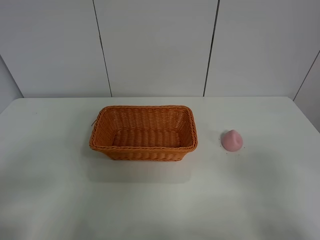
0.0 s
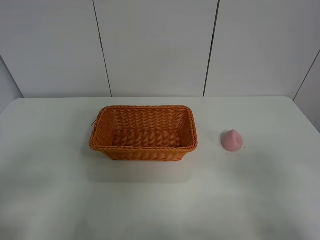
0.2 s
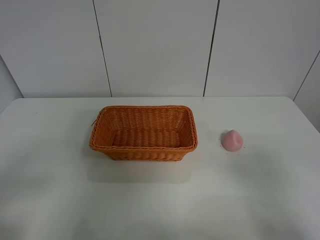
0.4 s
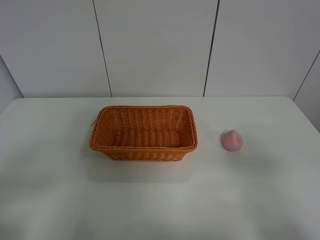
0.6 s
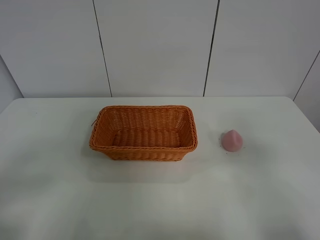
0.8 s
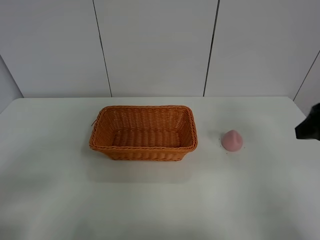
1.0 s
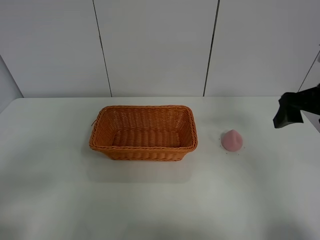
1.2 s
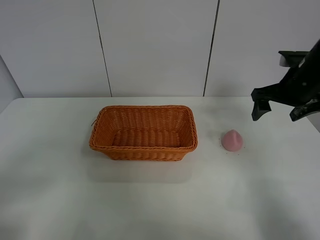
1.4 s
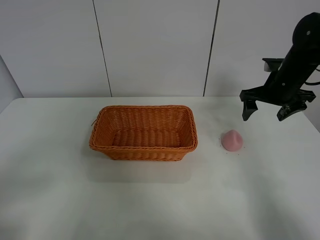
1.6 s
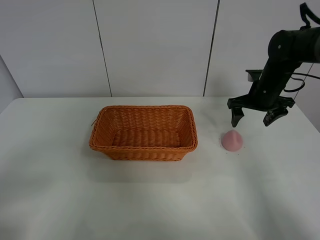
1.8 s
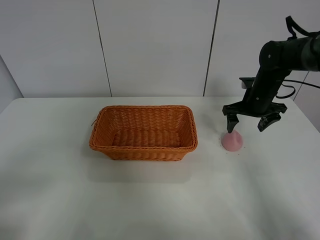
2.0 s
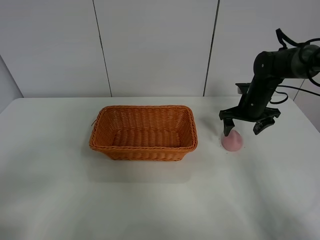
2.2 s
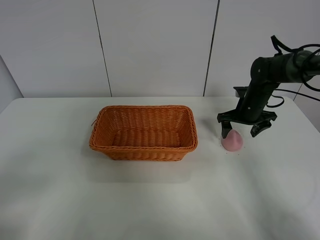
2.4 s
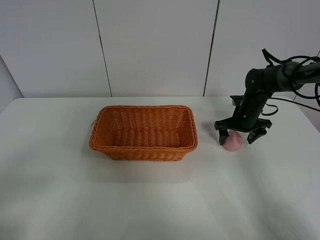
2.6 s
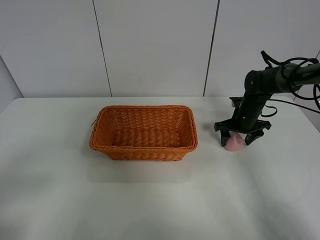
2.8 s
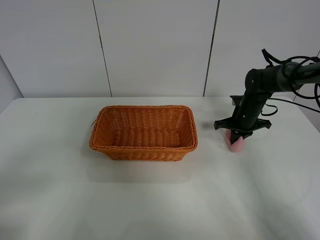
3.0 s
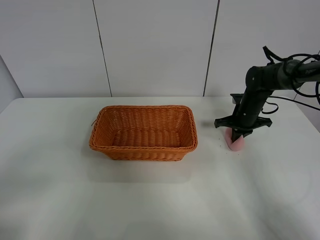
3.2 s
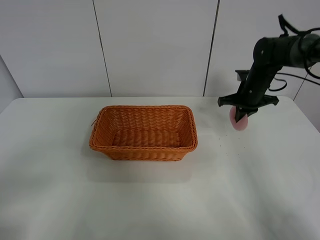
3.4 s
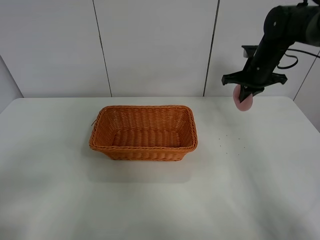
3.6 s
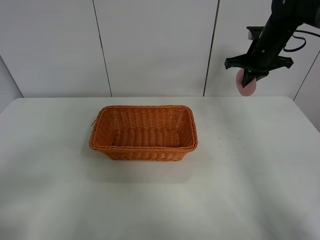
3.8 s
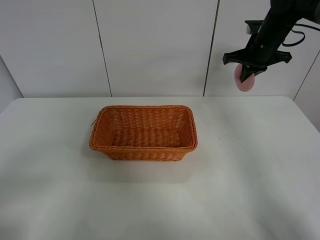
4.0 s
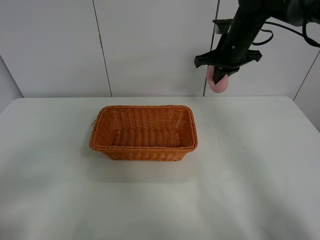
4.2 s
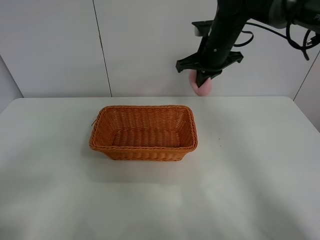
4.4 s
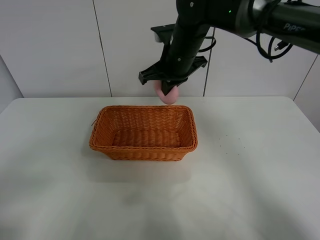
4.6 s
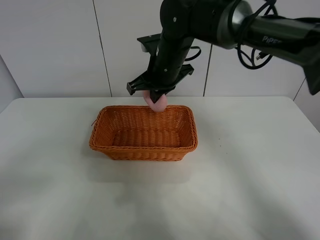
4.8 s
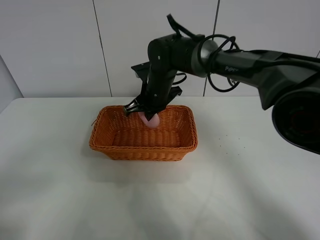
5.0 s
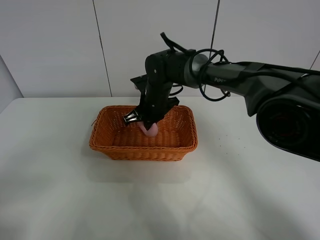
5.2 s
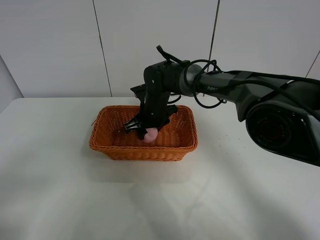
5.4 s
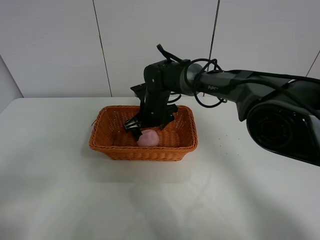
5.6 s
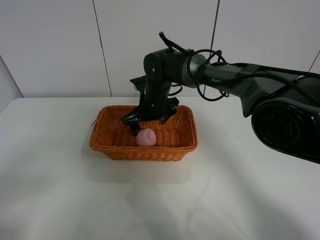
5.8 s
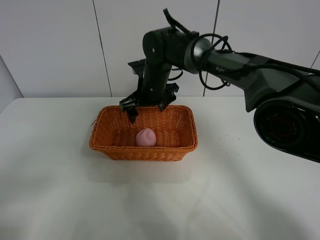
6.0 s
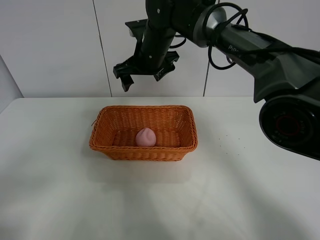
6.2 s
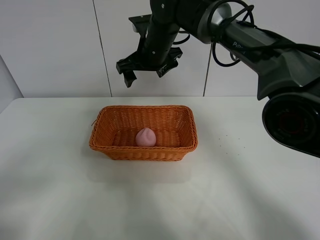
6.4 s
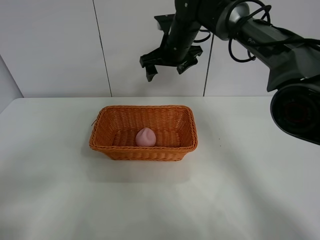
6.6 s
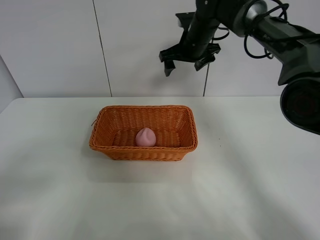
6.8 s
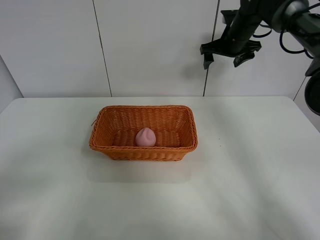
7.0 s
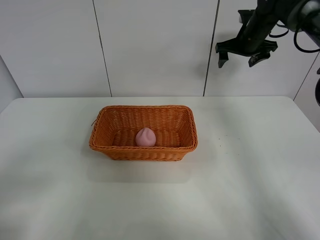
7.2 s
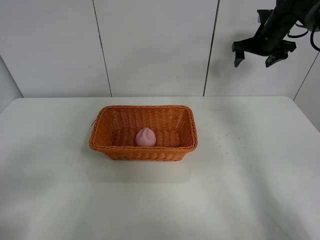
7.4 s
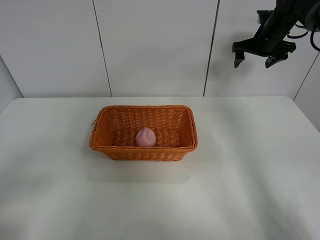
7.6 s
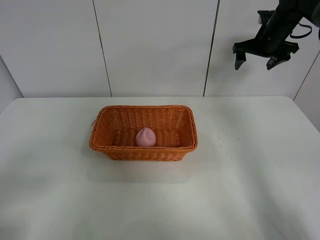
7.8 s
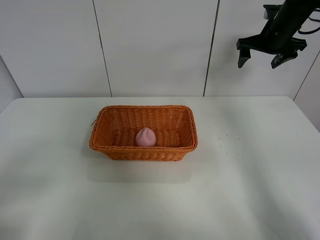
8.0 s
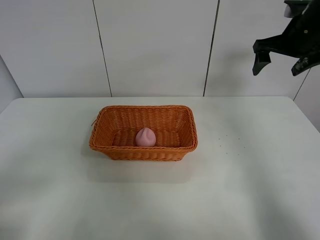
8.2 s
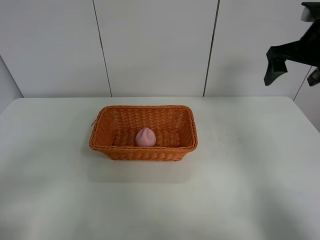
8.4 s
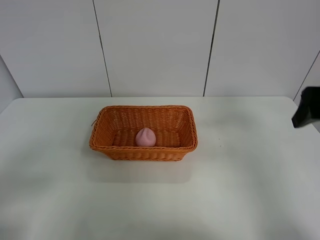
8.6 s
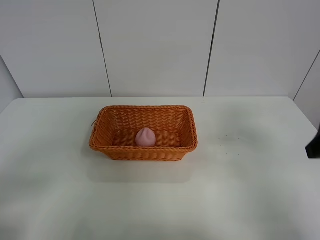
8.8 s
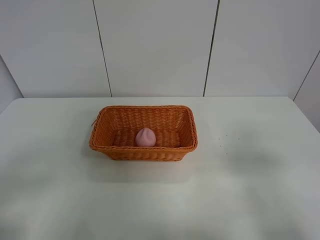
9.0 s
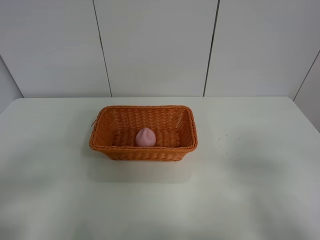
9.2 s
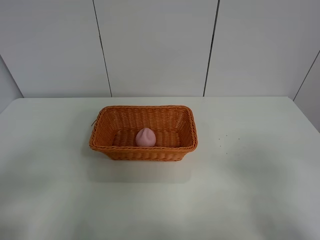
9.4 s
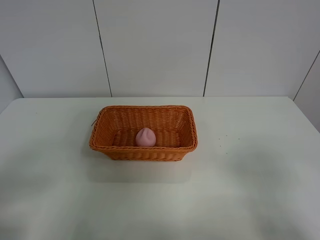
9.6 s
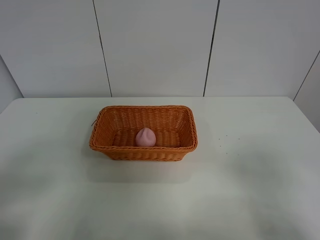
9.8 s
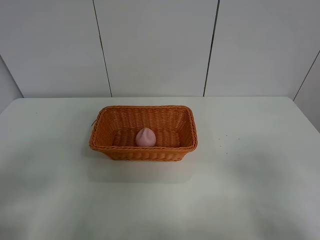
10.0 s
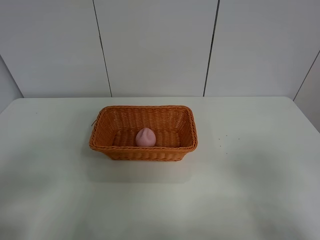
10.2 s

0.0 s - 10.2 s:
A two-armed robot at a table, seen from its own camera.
Step, 0.0 s - 2.8 s: Grasp the peach with right gripper.
Step, 3.0 s - 6.0 s: Place the peach in the basket with right gripper.
0.0 s - 1.4 s: The right gripper heads forward, covering some 30 cm.
1.4 s - 3.0 s: The right gripper goes approximately 20 cm downward and forward, and closes its fingers.
3.0 s - 4.4 s: The right gripper heads upward and to the left, covering some 25 cm.
4.4 s - 5.8 s: The right gripper moves downward and to the left, roughly 20 cm, and opens.
5.8 s - 7.2 s: The right gripper moves to the right, upward and forward, roughly 30 cm.
7.2 s - 8.8 s: The right gripper moves backward, approximately 35 cm.
8.8 s - 10.2 s: The right gripper moves backward, approximately 15 cm.

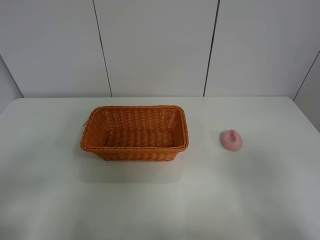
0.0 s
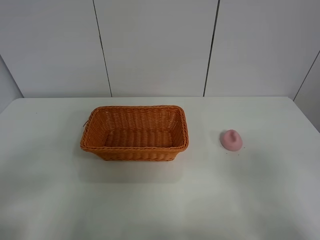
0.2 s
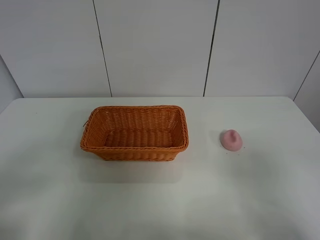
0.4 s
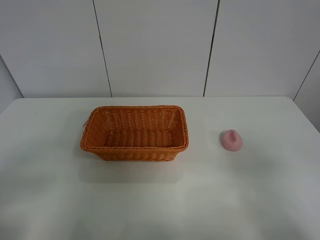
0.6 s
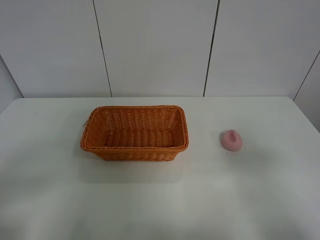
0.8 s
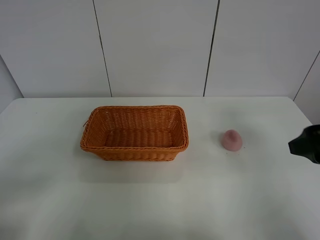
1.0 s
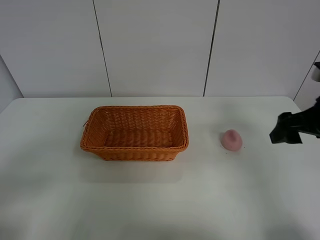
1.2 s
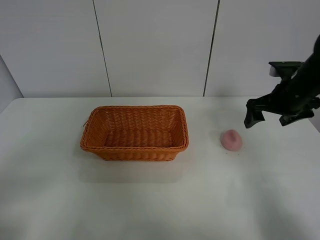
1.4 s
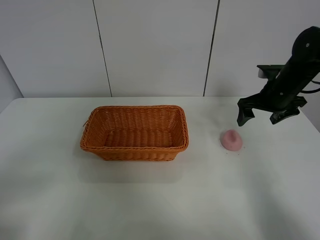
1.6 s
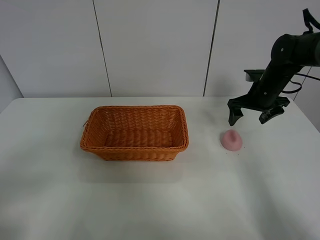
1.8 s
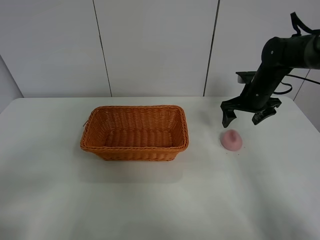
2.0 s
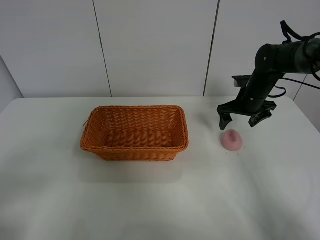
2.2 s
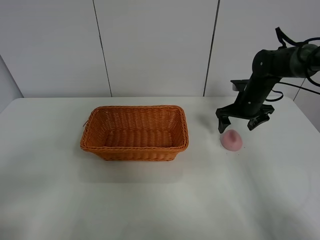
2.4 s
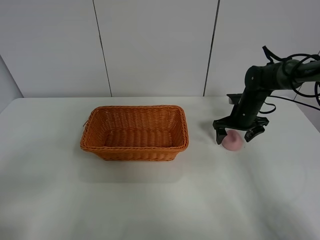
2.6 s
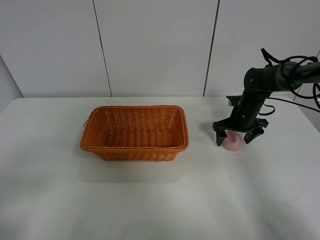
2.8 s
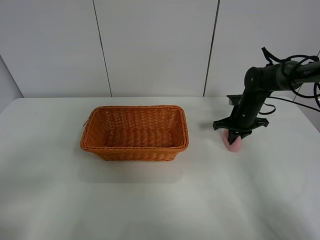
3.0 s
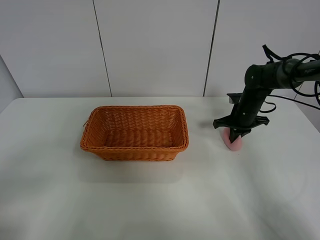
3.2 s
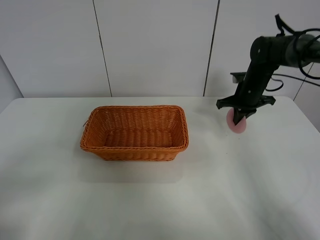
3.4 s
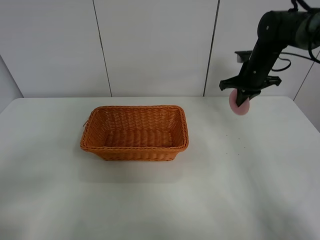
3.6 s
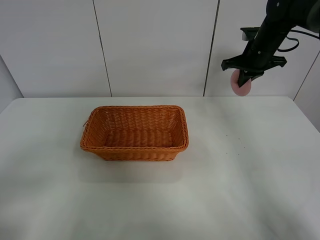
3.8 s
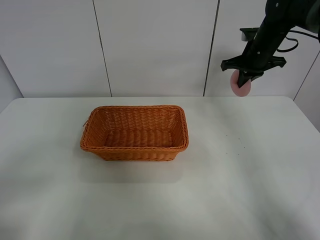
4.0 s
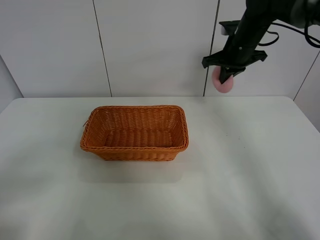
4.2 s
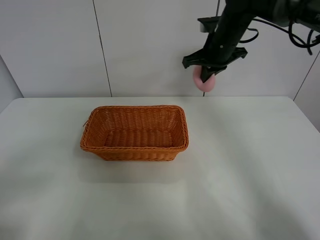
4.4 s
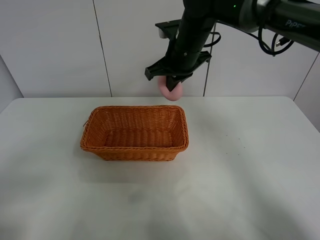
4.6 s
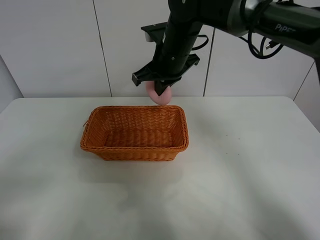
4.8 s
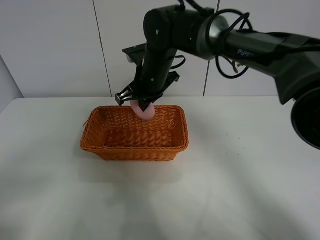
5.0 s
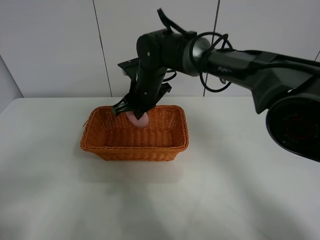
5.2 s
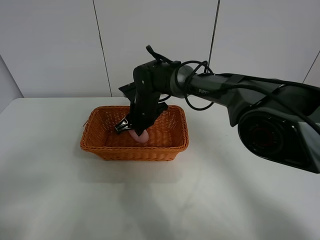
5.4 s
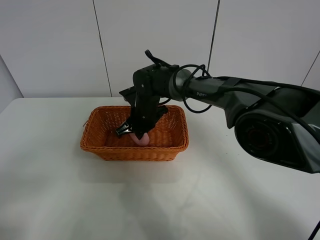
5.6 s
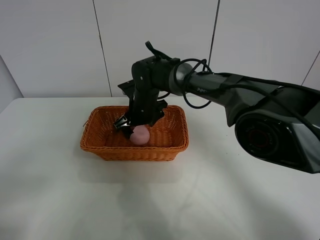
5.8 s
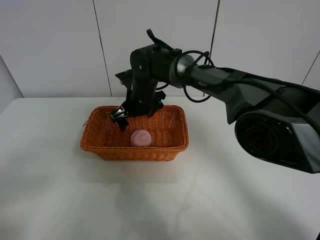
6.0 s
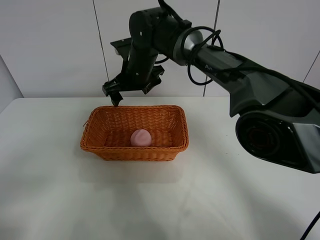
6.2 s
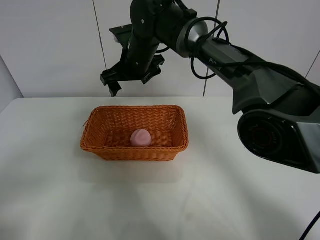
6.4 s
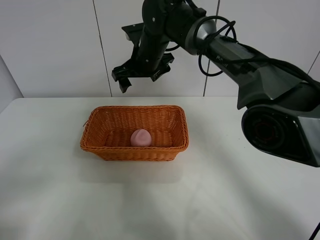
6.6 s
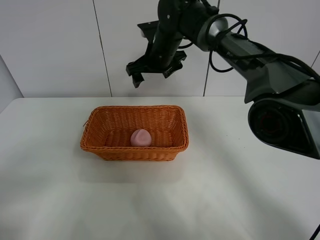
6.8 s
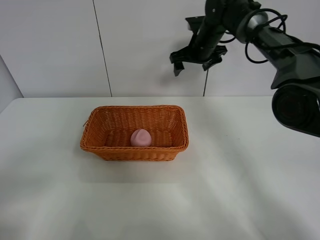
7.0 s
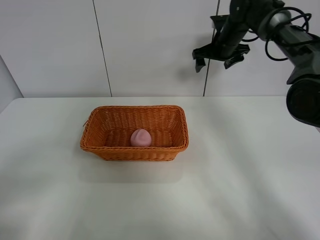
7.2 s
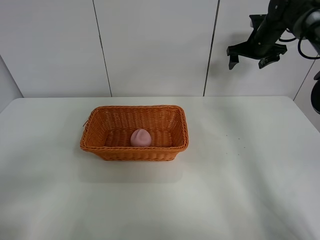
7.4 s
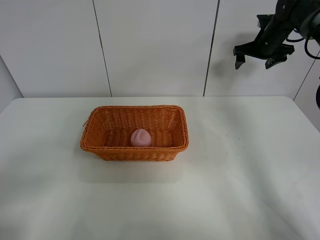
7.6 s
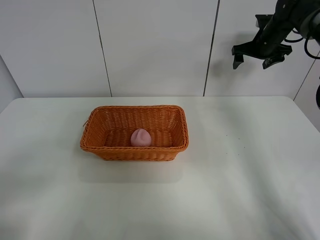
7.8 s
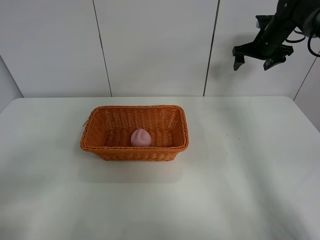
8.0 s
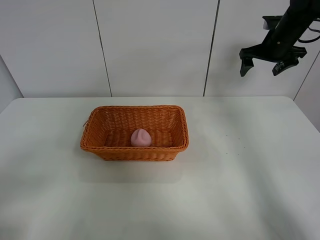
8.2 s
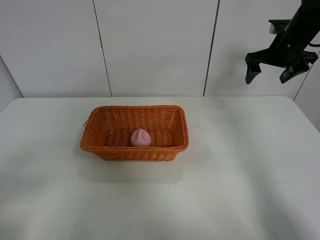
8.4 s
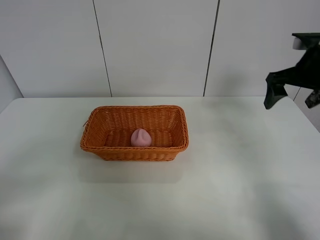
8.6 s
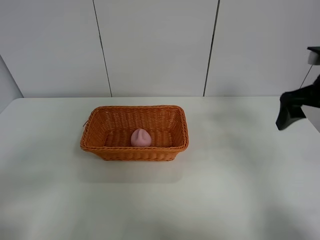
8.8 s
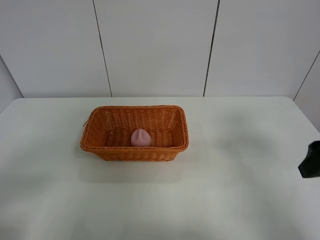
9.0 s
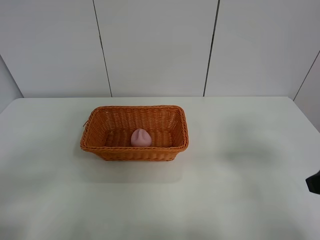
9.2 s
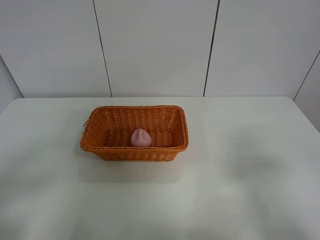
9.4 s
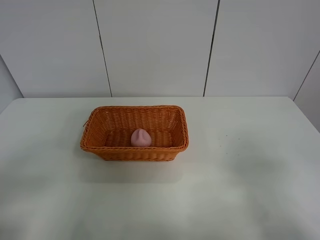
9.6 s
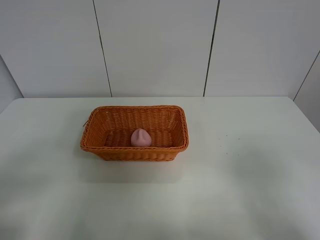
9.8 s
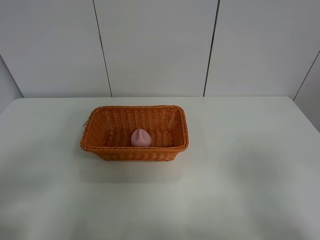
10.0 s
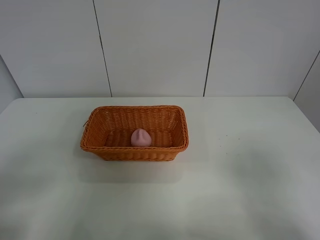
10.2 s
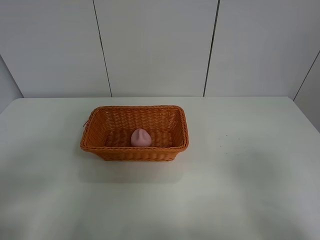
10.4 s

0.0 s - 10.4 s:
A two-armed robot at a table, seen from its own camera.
Step, 0.0 s - 3.2 s: Grasp the peach with right gripper.
Step, 3.4 s - 6.8 s: Place the peach in the basket with right gripper.
0.0 s - 1.4 s: The right gripper heads forward, covering about 35 cm.
1.4 s - 3.0 s: The right gripper goes about 15 cm downward and forward, and closes its fingers.
3.0 s - 4.4 s: The right gripper moves upward and to the left, about 25 cm.
4.4 s - 6.0 s: The right gripper shifts some 20 cm to the left and downward, and opens up.
6.0 s - 7.4 s: The right gripper travels to the right by about 30 cm.
7.4 s - 9.0 s: The right gripper moves backward, some 40 cm.
9.0 s - 10.4 s: The right gripper shifts some 15 cm backward.
